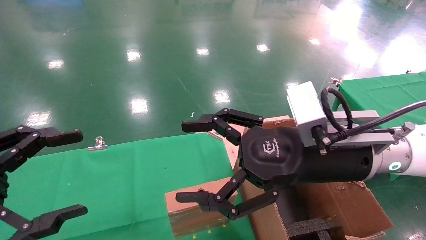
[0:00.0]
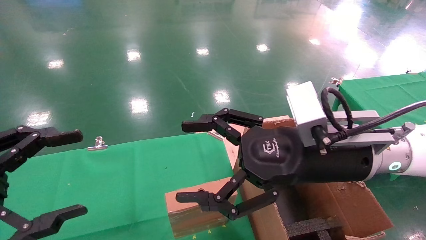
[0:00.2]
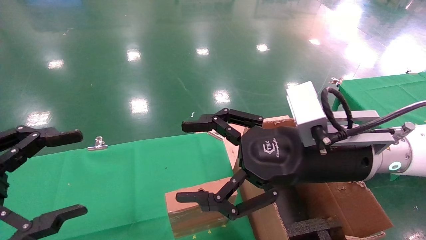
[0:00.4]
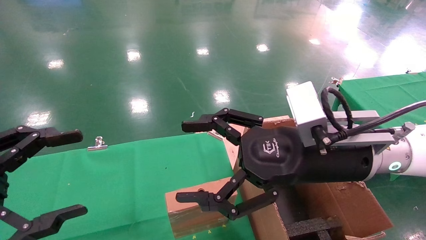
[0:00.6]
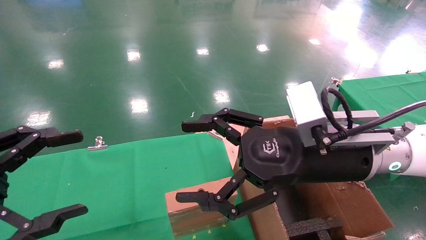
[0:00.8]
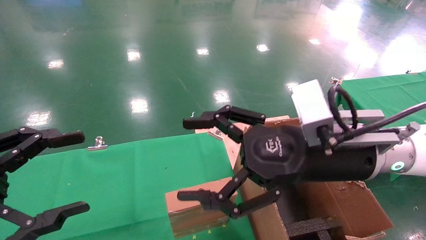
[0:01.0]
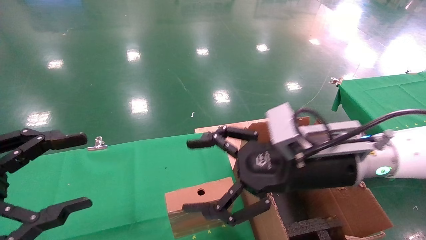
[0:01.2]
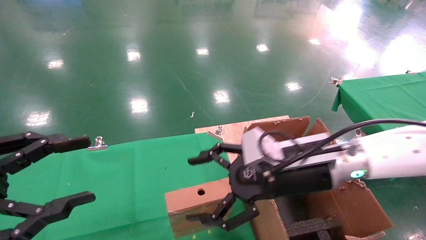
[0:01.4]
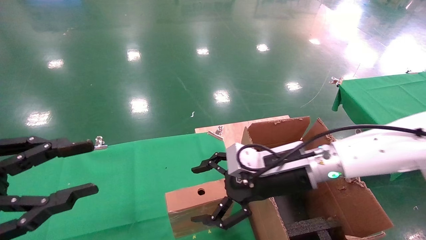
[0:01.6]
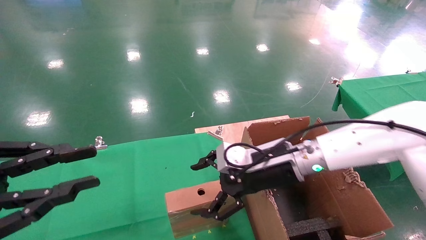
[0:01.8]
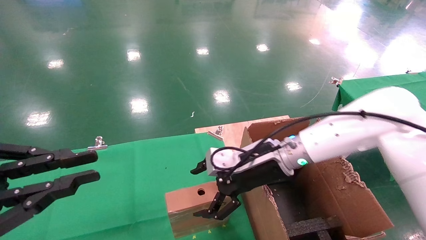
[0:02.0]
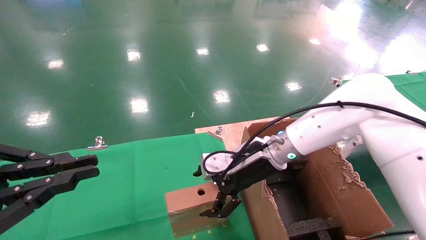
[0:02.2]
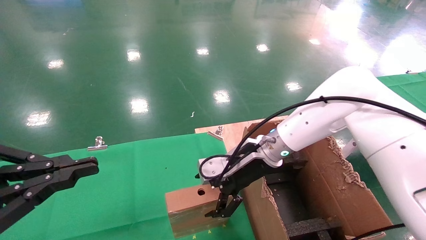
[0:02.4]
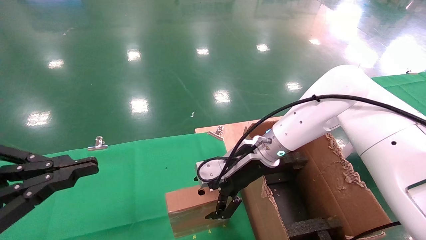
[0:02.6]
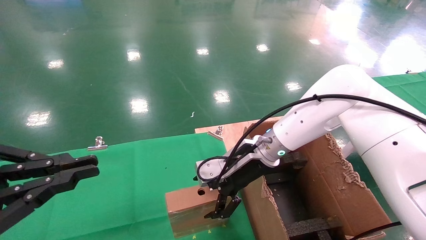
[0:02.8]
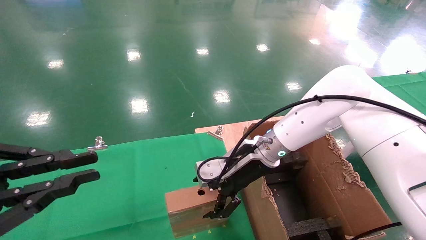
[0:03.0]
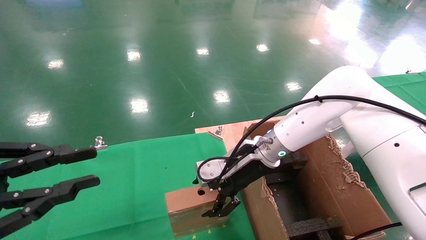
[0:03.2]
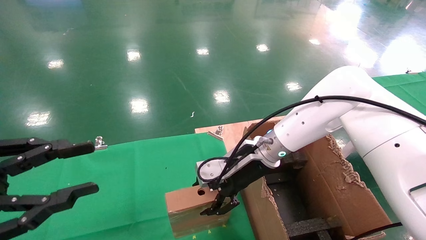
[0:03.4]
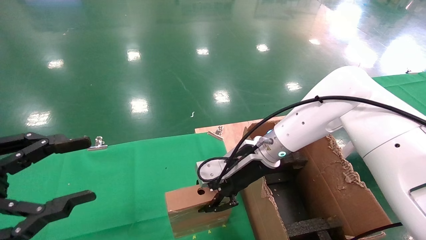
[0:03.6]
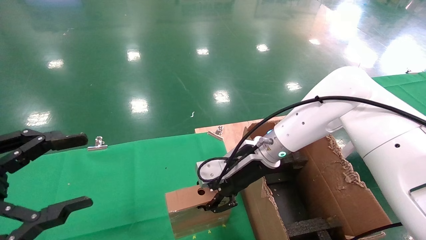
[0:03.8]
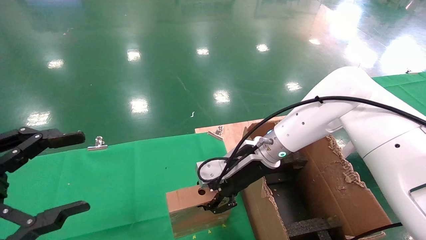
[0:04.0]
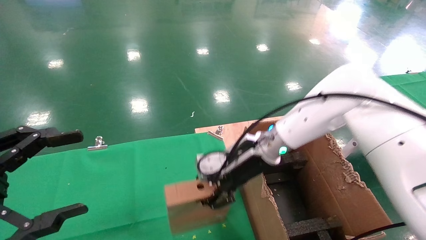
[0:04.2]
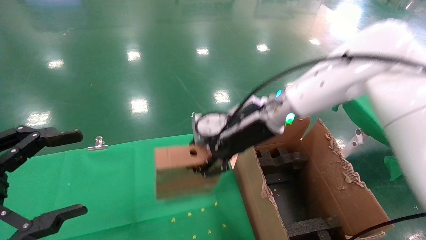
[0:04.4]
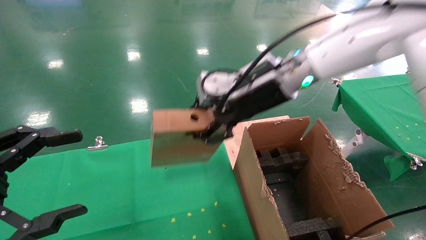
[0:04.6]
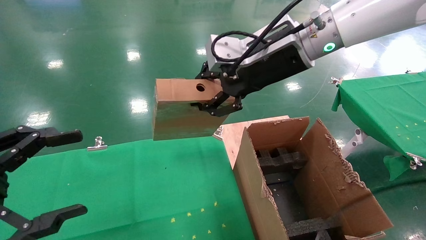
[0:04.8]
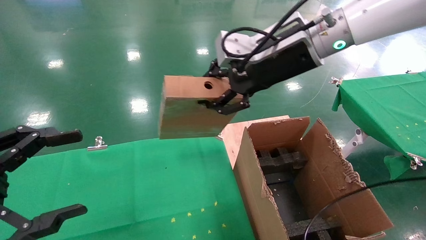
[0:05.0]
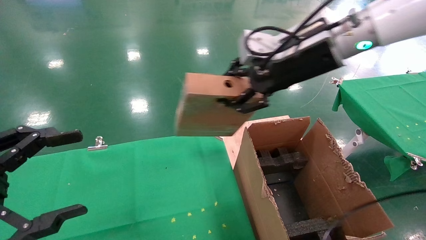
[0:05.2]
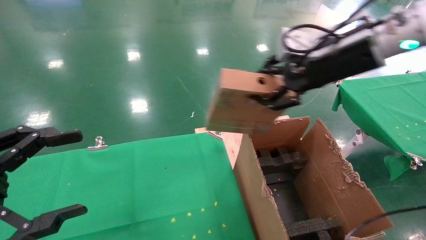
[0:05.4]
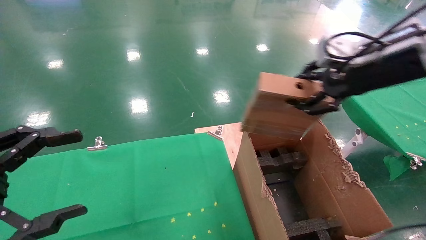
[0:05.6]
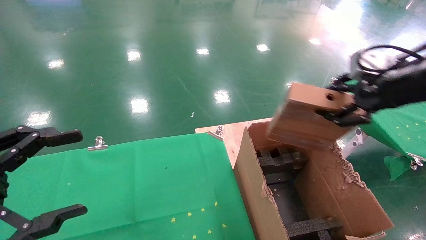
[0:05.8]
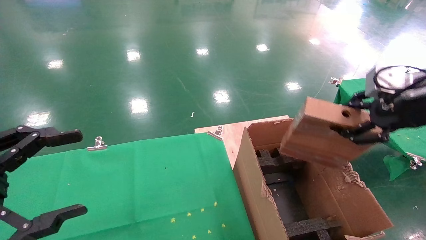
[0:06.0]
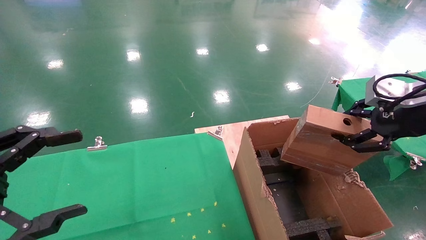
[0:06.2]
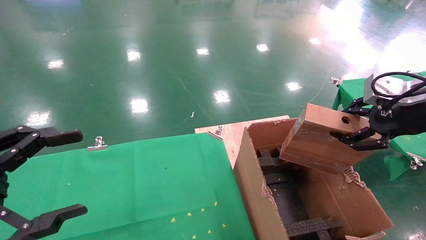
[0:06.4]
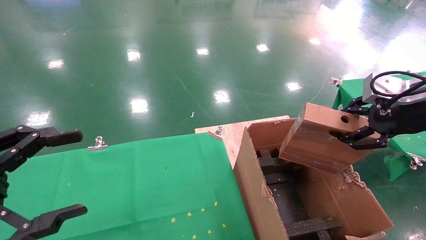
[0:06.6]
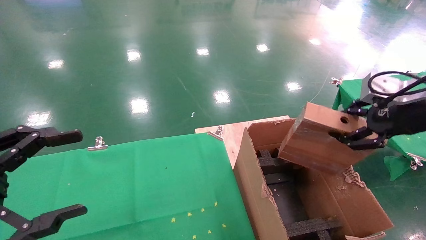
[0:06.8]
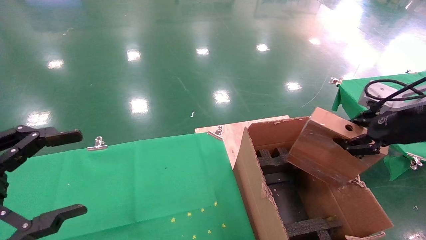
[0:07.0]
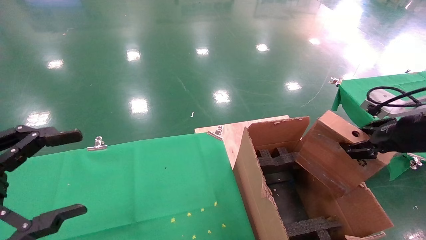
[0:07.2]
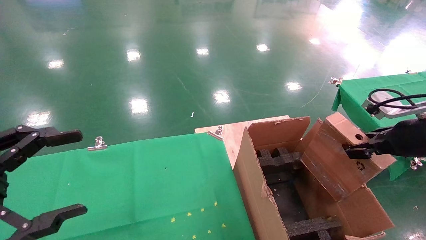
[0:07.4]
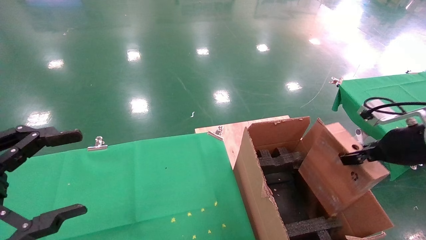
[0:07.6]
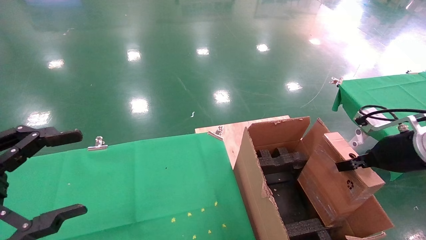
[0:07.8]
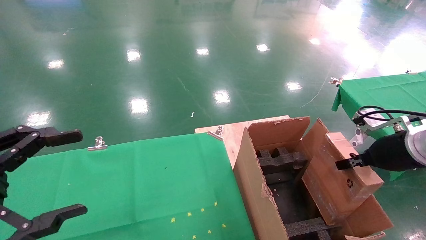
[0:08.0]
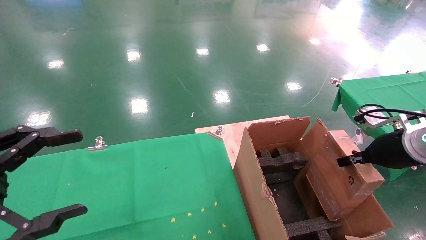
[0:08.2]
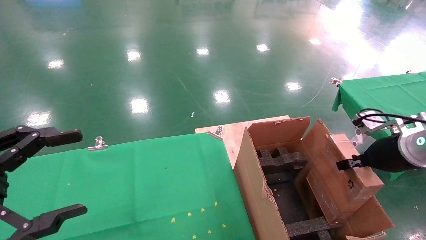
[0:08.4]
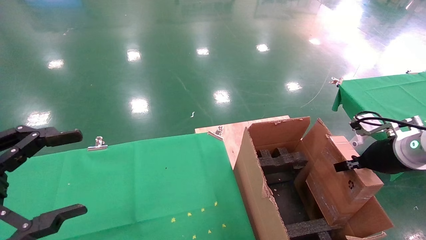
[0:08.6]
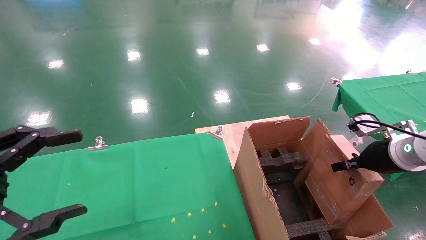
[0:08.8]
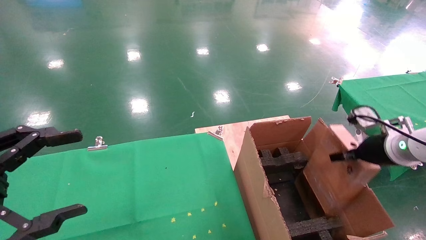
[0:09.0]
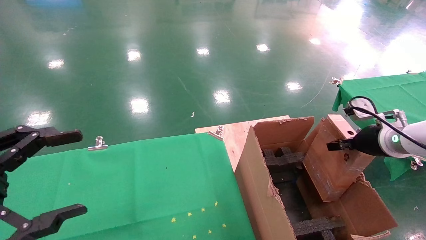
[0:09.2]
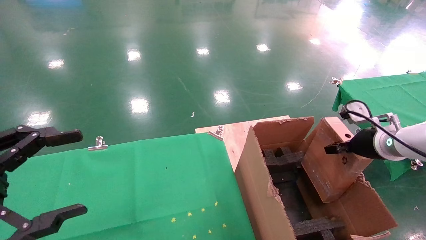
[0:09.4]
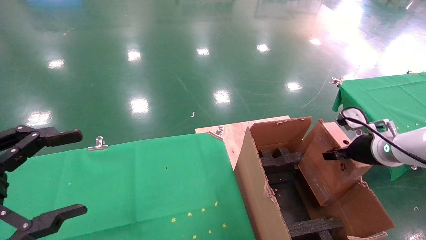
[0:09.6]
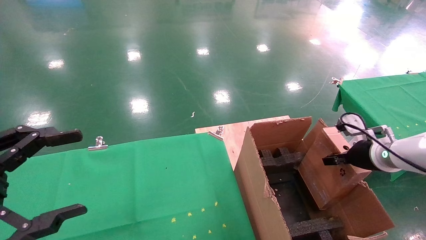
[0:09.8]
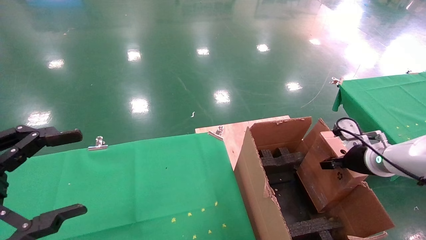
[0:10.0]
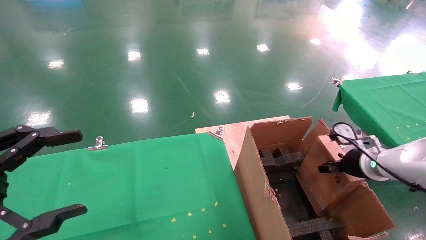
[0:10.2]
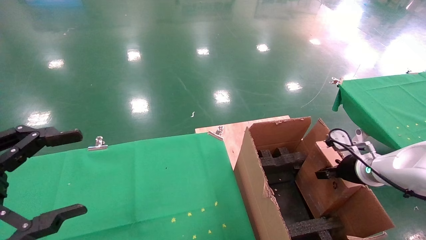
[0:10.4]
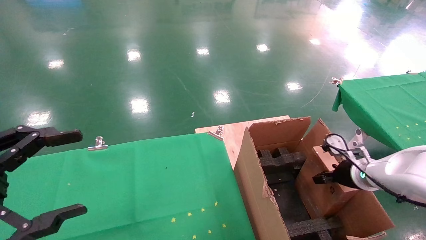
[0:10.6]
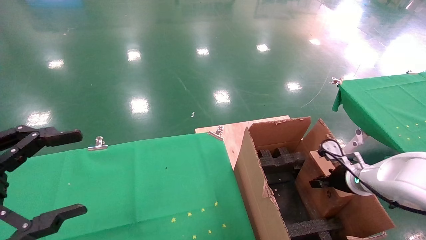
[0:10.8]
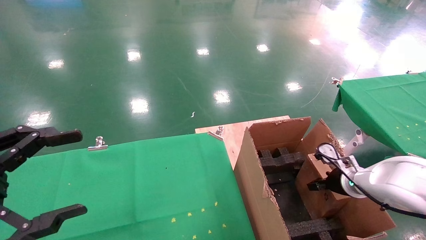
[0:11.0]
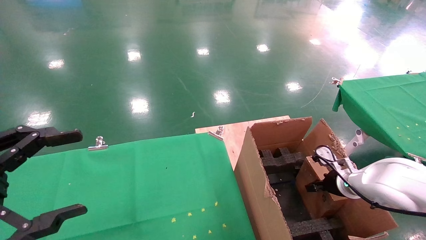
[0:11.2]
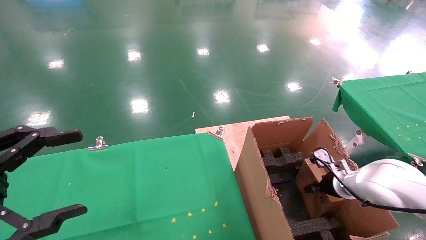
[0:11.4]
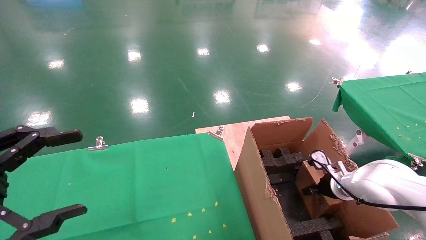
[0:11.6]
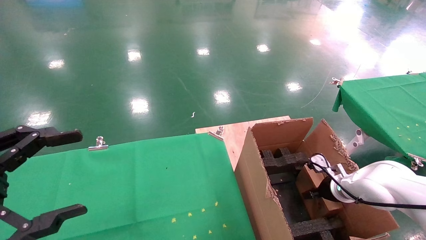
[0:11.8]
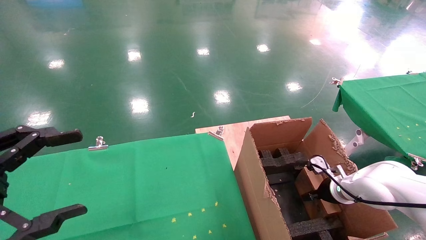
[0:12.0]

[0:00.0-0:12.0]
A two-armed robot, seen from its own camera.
Task of the whole recording: using a robotic arm to pick up a cardboard box and palace it the carton.
Step, 0:01.2 to 0:03.6: Pick up the mouse and the power cord paper box.
0:00.0 to 0:01.6: The left gripper closes. Meanwhile the right gripper goes roughly 10 cm forward and downward.
0:01.6 to 0:03.0: The right gripper is displaced forward by about 5 cm. Meanwhile the left gripper closes up.
0:03.0 to 0:04.4: The left gripper opens up; the right gripper shifts roughly 10 cm upward, and closes its fingers.
0:04.4 to 0:06.0: The right gripper goes some 30 cm to the right and backward.
0:06.0 to 0:07.6: The right gripper moves downward, about 10 cm.
0:07.6 to 0:09.0: The right gripper shifts some 5 cm forward.
0:09.0 to 0:10.4: The right gripper goes approximately 10 cm downward.
0:10.4 to 0:12.0: The right gripper travels downward by about 10 cm.

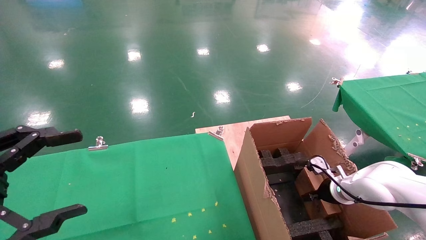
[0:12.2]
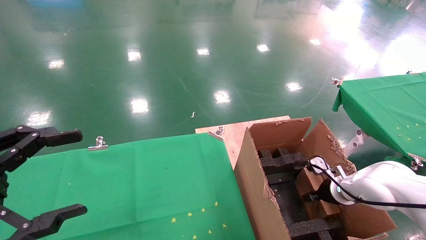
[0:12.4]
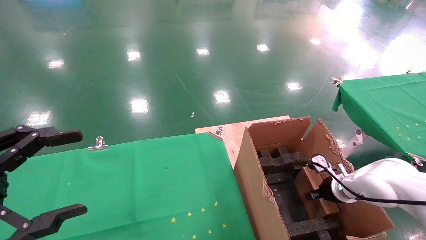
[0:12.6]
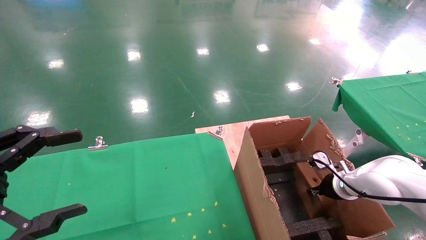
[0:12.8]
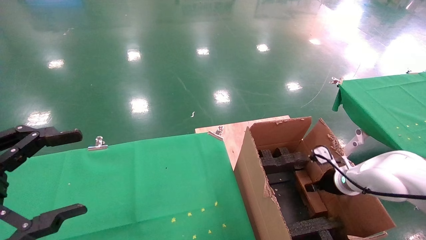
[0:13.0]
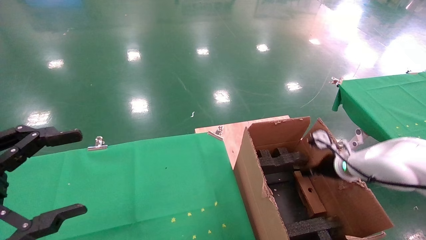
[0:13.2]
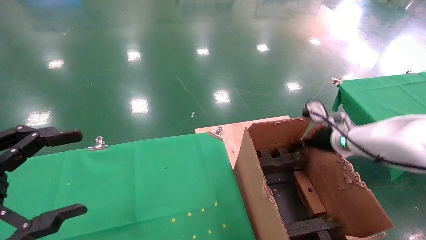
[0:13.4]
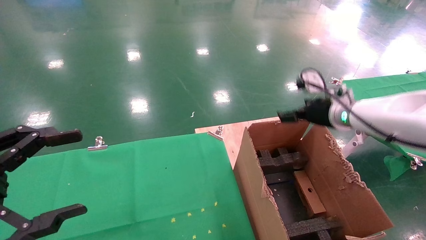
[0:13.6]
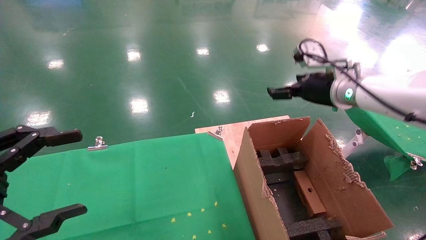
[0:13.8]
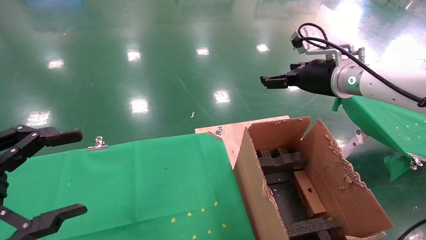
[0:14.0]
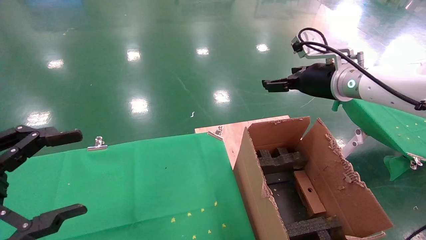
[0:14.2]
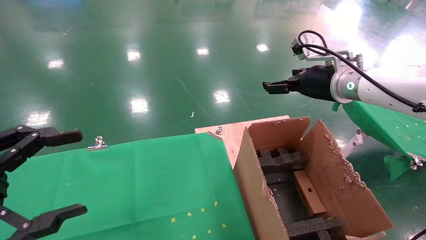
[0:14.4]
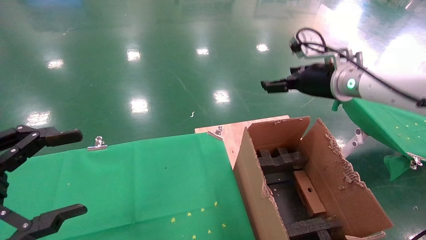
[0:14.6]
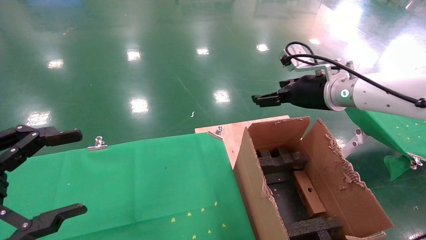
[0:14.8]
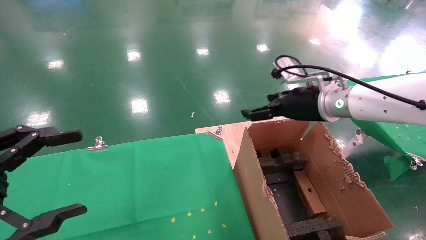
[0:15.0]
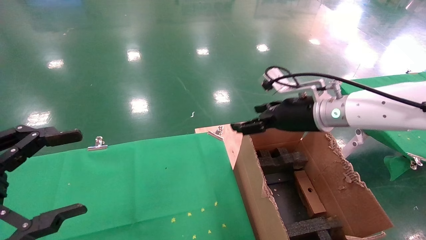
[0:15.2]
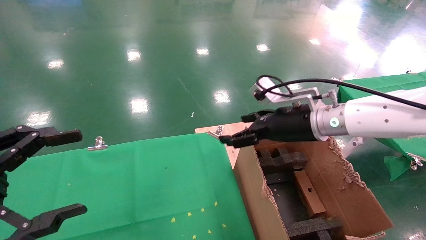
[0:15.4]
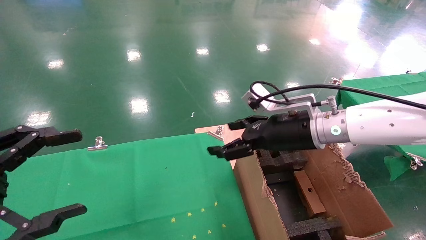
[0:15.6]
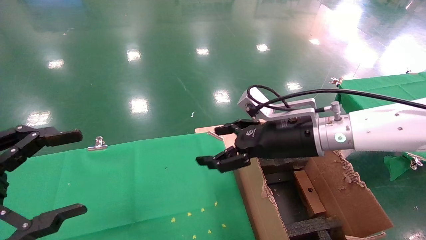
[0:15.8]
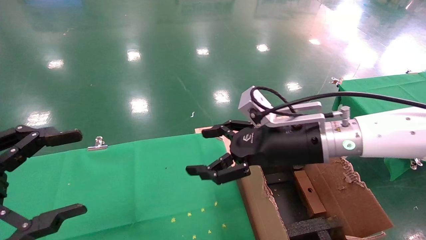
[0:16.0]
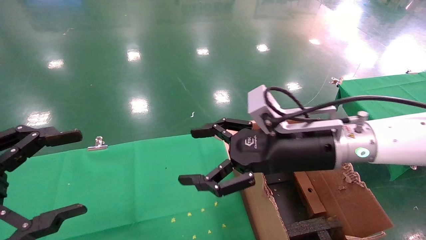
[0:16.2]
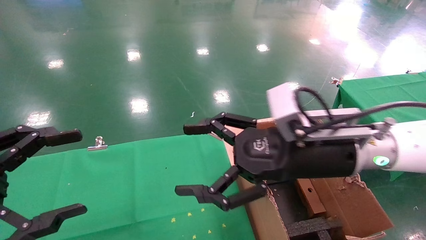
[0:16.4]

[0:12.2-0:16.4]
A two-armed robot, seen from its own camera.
Task of the whole recording: using a robotic arm to pick up a cardboard box and palace it the carton.
0:12.2 to 0:13.6: The right gripper heads upward, covering roughly 25 cm, and opens up.
0:13.6 to 0:15.0: The right gripper shifts approximately 5 cm to the left.
0:15.0 to 0:16.4: The right gripper heads backward and to the left, covering approximately 15 cm.
